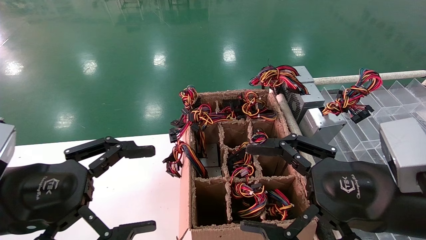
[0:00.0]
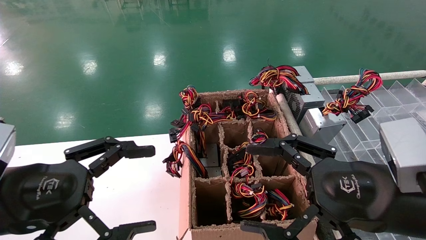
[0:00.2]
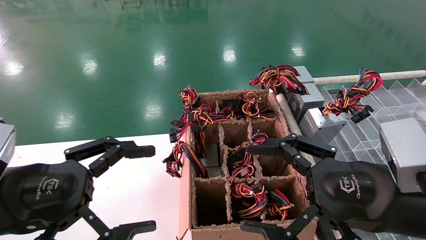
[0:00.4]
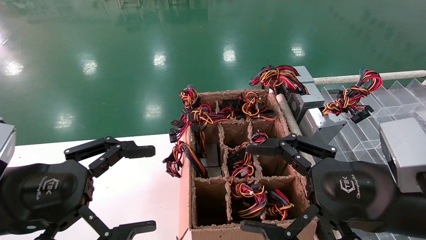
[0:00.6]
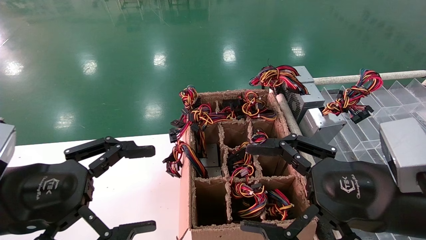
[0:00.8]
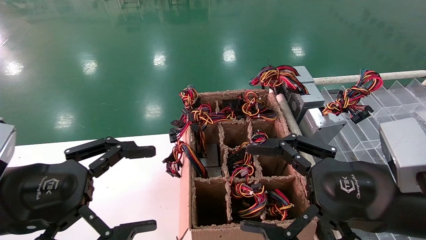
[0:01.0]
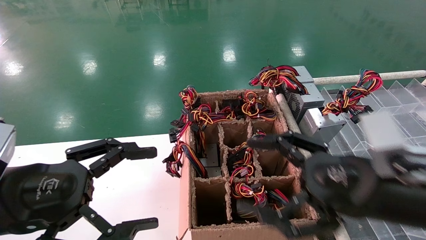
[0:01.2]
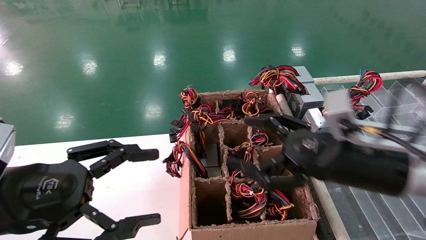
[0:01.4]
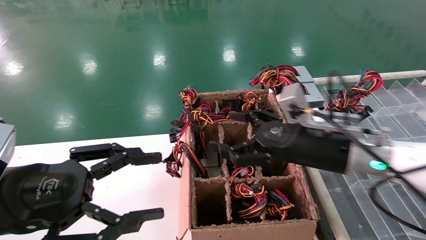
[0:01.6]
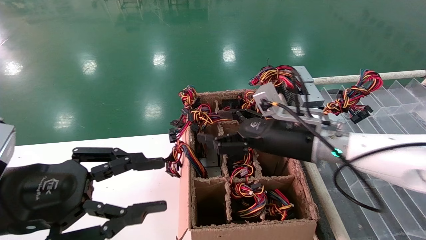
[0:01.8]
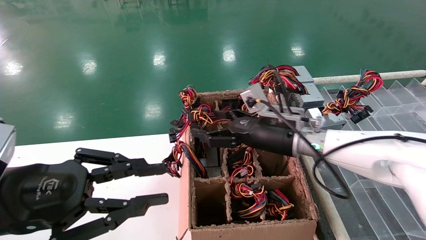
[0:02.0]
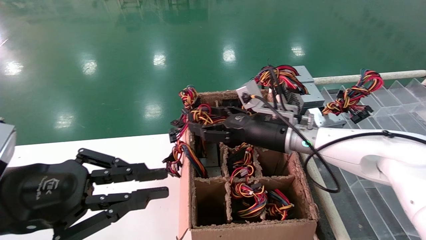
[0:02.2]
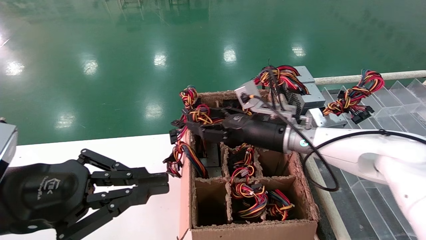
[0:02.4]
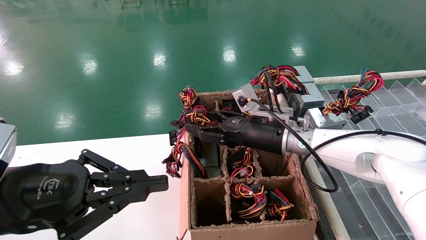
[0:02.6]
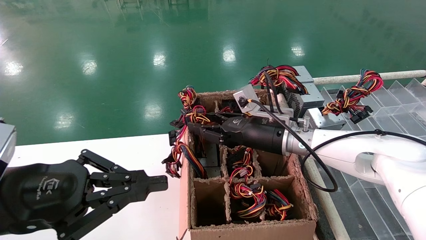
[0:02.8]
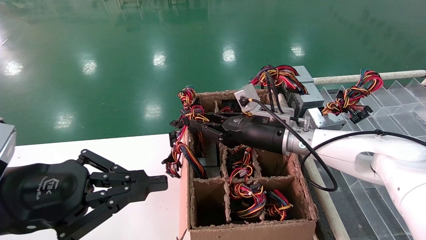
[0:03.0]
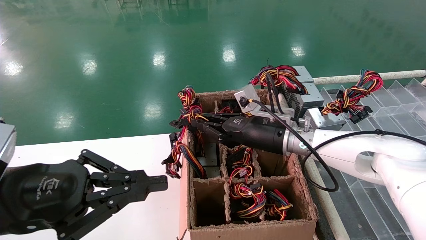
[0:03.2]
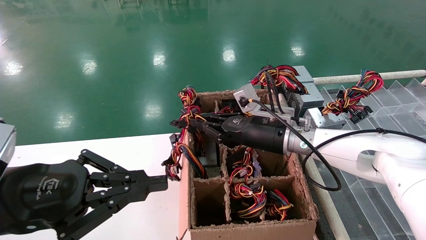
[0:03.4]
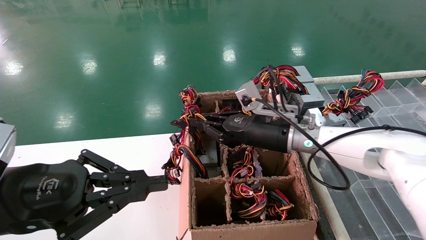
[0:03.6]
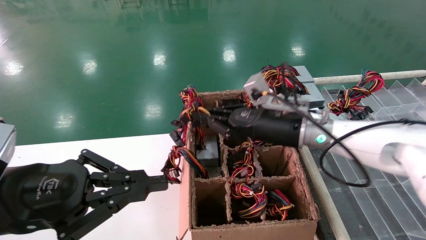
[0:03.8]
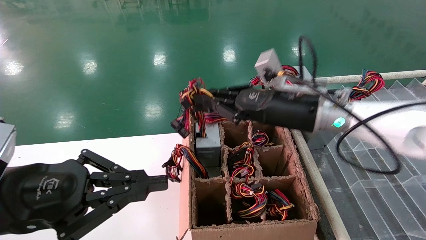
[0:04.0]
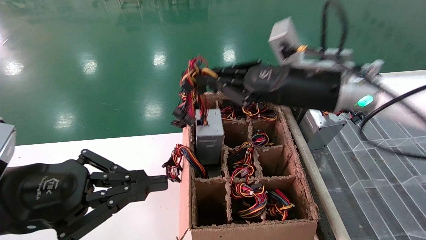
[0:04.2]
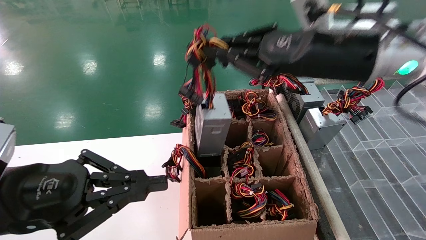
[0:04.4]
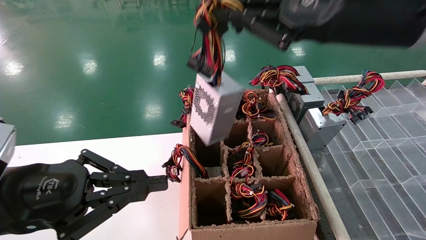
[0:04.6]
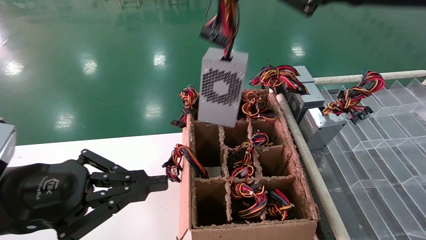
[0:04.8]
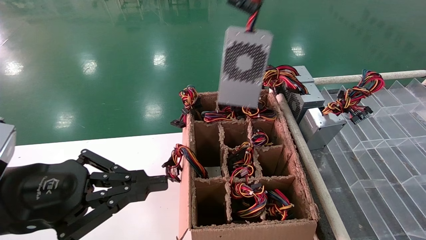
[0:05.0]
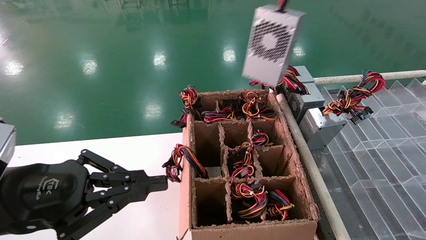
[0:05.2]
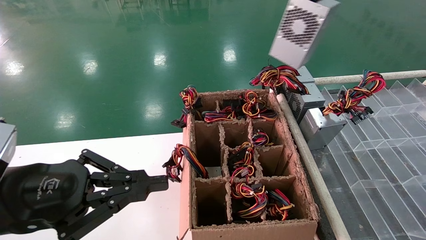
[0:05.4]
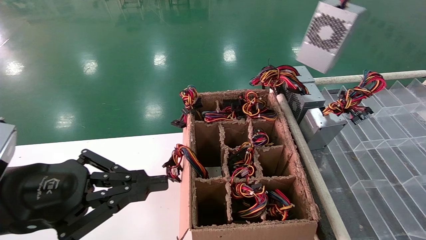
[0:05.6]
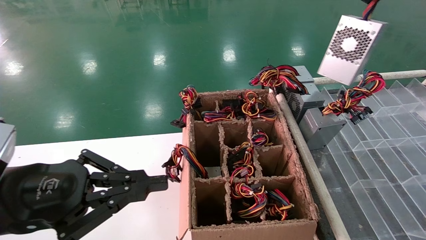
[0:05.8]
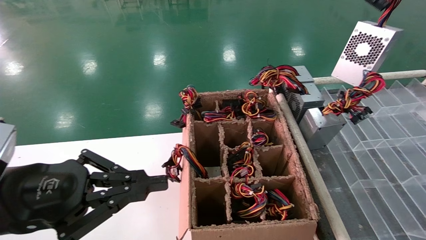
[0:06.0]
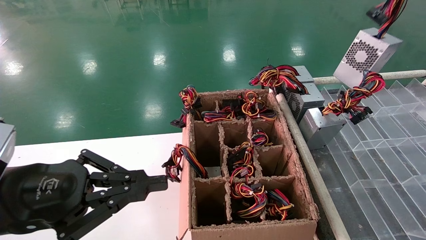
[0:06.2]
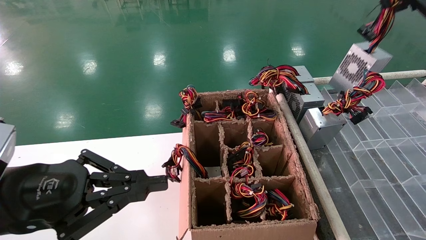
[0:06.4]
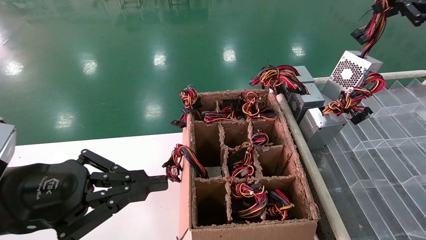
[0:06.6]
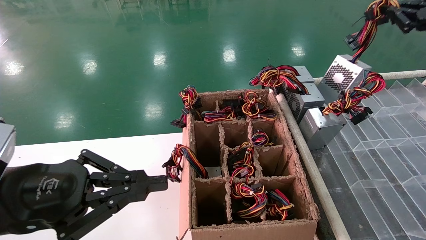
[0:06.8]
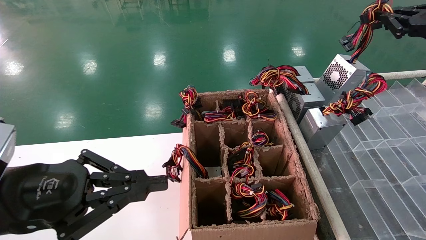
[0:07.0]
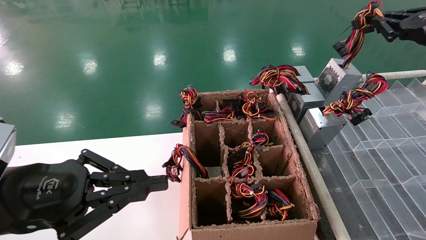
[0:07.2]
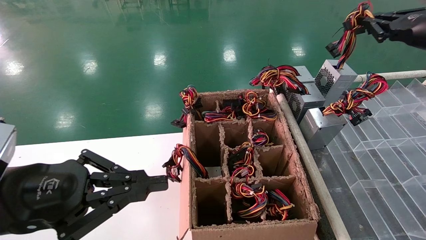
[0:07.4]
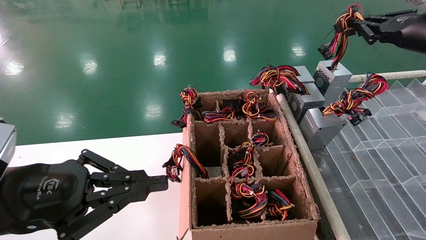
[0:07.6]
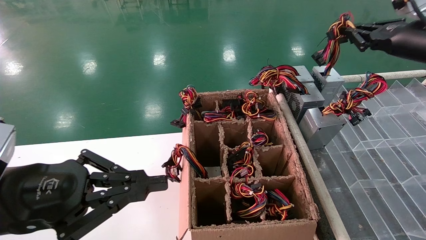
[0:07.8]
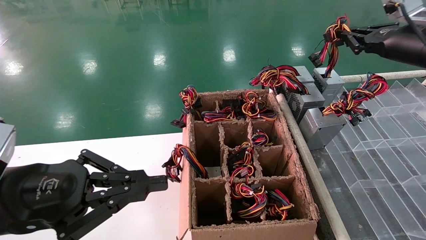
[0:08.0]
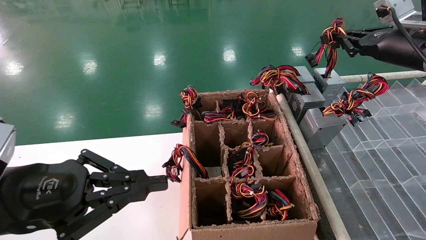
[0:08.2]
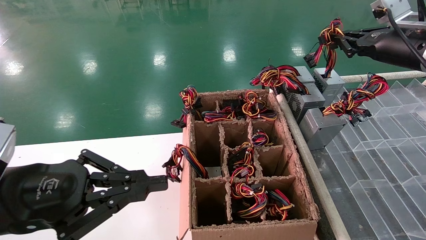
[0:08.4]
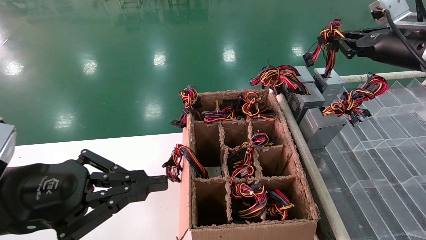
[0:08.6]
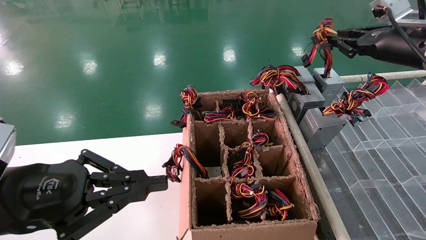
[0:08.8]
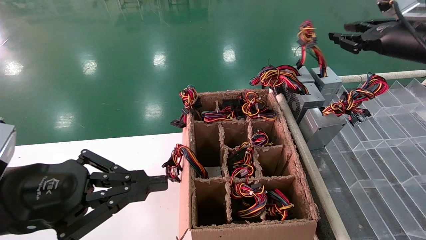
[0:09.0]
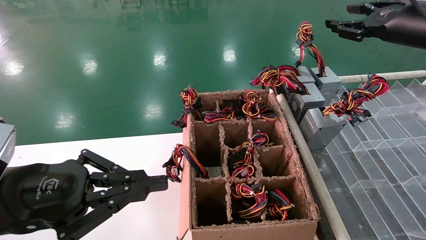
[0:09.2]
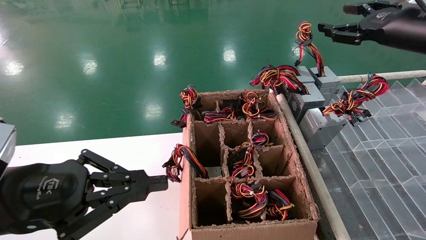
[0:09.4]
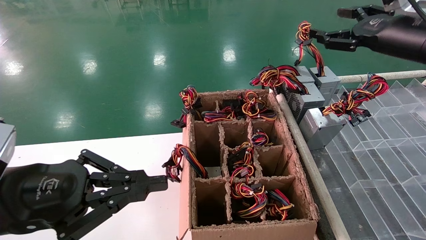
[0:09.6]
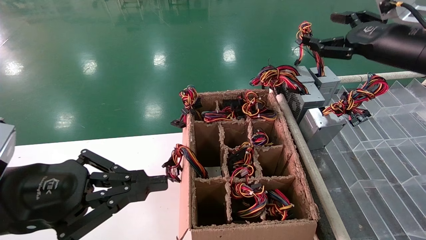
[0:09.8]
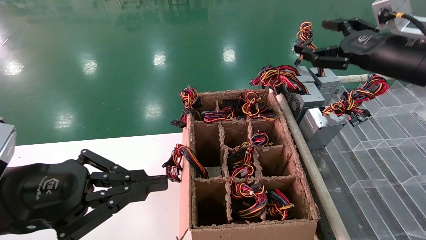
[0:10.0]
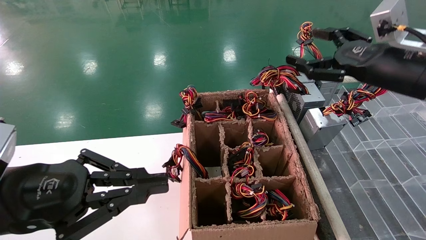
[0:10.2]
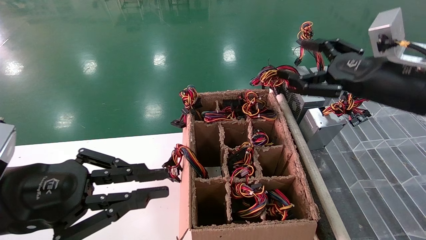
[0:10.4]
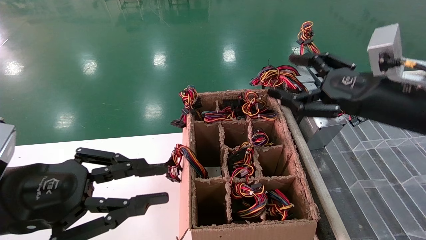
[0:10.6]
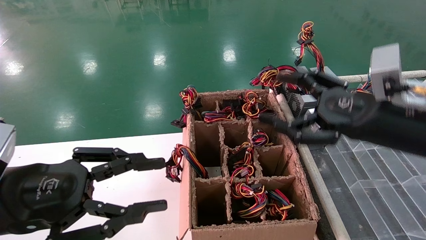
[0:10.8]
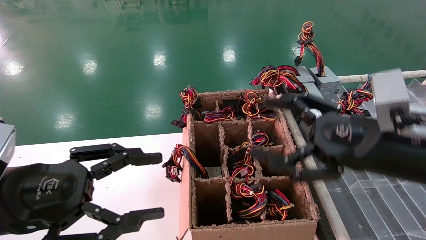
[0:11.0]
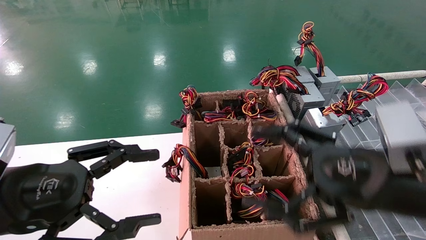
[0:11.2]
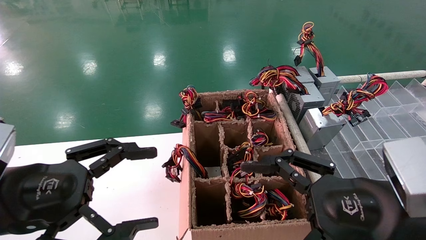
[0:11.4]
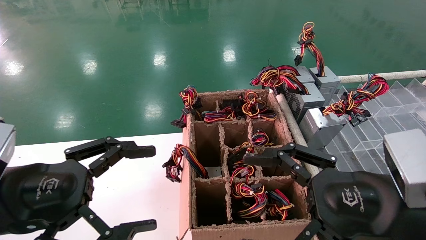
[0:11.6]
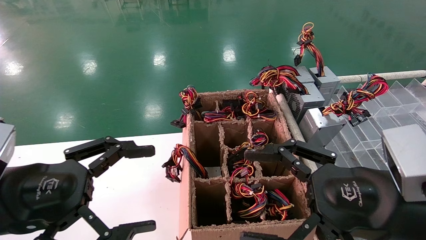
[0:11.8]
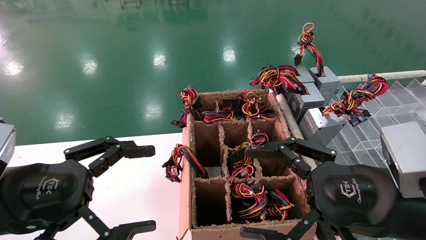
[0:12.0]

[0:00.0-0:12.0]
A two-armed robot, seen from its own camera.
Step, 0:01.4 to 0:03.4: Grab the main unit power supply from the containment box.
Step, 0:03.6 to 0:09.0: Place the main unit power supply in the designated area.
0:00.0 to 0:01.6: The right gripper goes some 15 cm forward.
0:01.6 to 0:03.0: The left gripper closes its fingers, while the right gripper goes about 10 cm forward and to the left, and closes its fingers.
0:03.0 to 0:04.4: The right gripper goes roughly 20 cm upward and backward, and closes.
0:04.4 to 0:06.0: The right gripper moves to the right and upward, approximately 25 cm.
0:06.0 to 0:07.6: The right gripper travels forward and downward by about 15 cm.
0:07.6 to 0:09.0: The grippers move only a little.
0:09.0 to 0:10.4: The right gripper moves downward, backward and to the left, roughly 15 cm, and opens.
0:10.4 to 0:12.0: The right gripper travels backward, downward and to the left by about 15 cm. The left gripper opens.

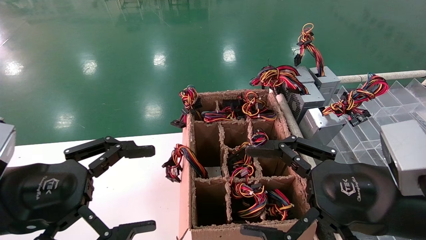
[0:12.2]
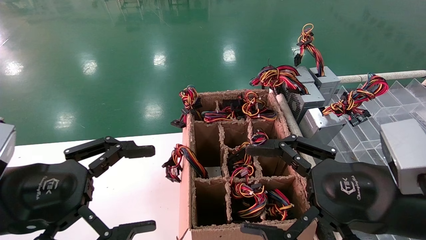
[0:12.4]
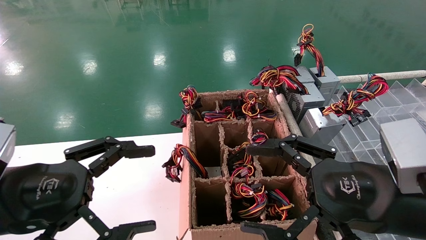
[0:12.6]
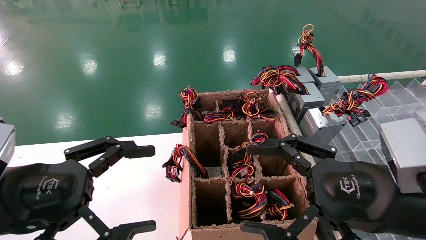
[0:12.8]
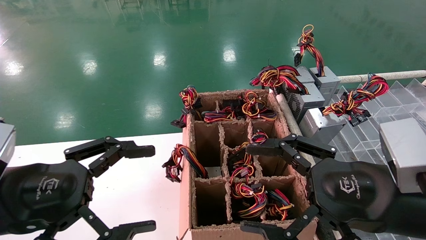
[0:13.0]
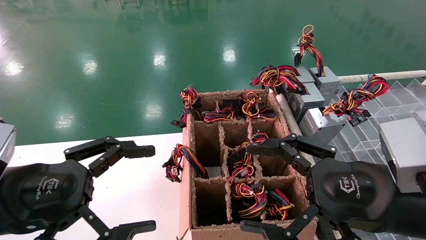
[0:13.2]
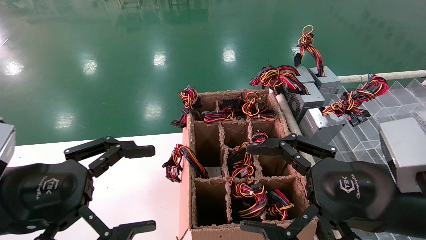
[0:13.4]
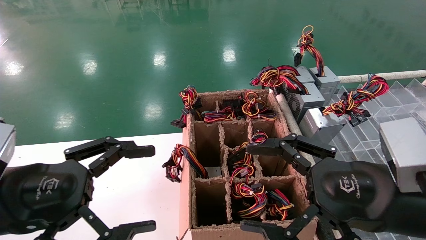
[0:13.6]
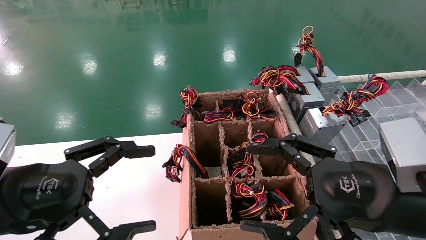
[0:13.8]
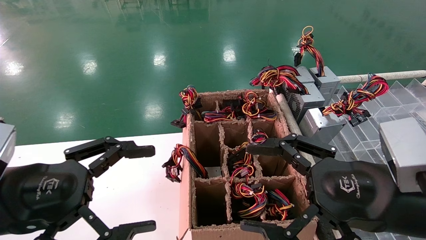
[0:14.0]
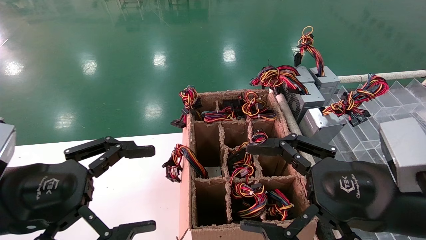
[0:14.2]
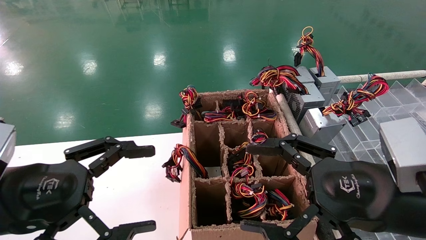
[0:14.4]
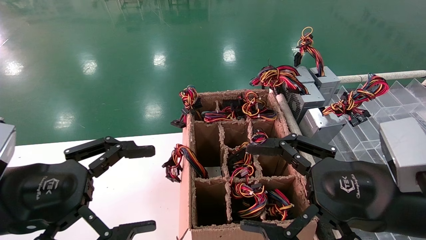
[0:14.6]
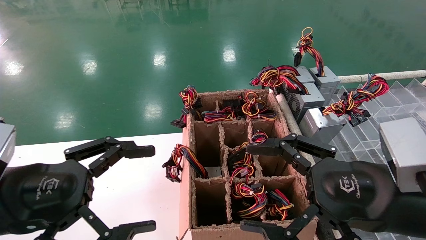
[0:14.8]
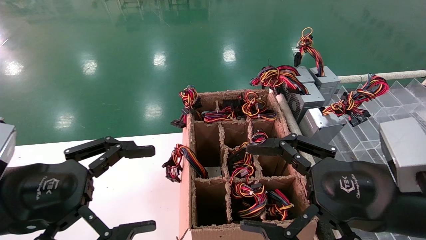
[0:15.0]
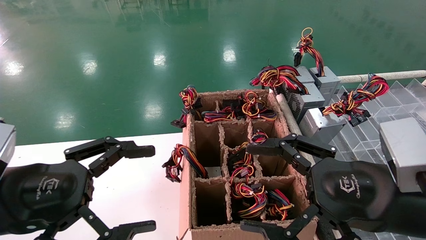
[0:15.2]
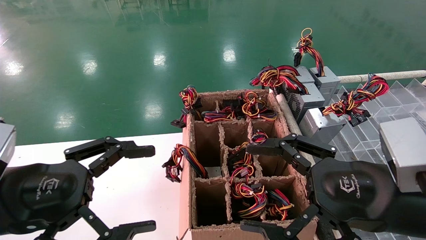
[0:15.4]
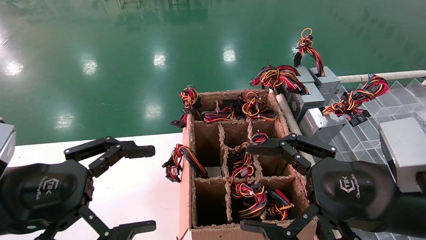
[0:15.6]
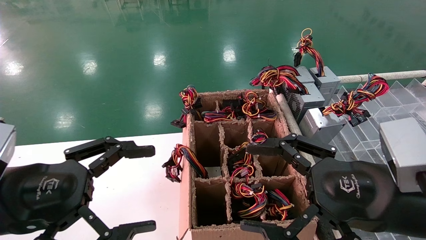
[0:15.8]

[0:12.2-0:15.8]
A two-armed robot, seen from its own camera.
0:12.2 to 0:15.8: Both grippers stay about where they are.

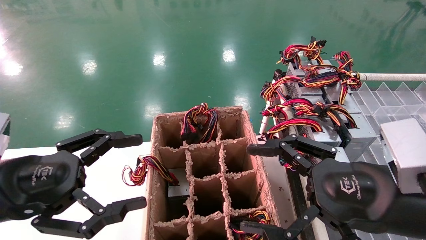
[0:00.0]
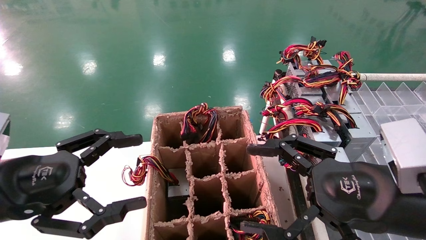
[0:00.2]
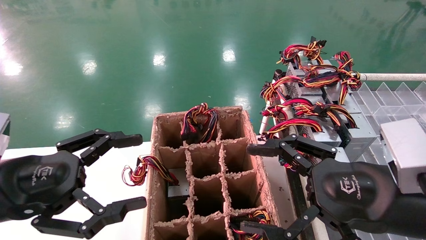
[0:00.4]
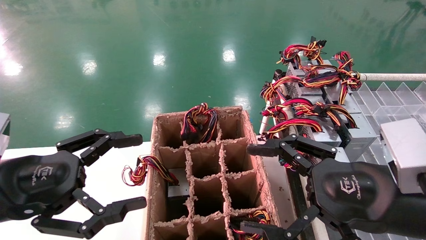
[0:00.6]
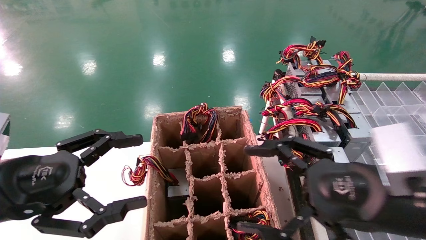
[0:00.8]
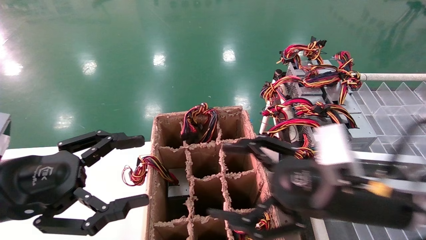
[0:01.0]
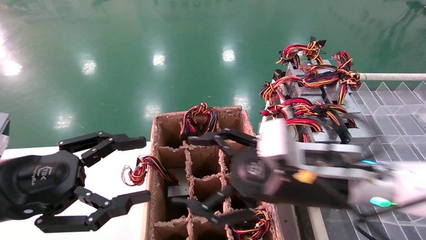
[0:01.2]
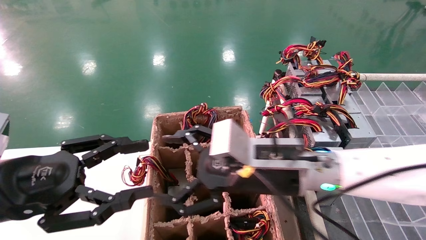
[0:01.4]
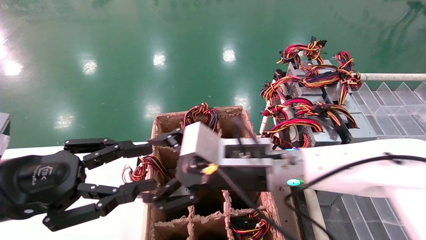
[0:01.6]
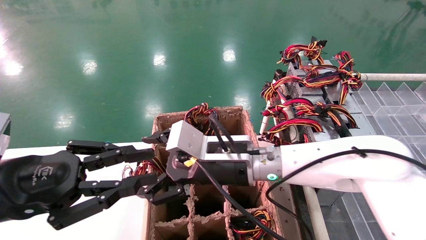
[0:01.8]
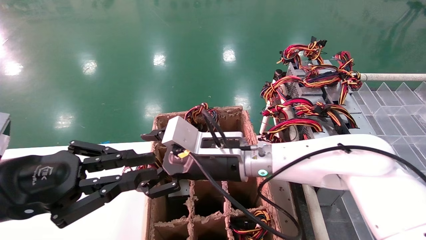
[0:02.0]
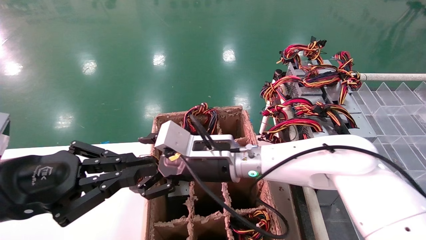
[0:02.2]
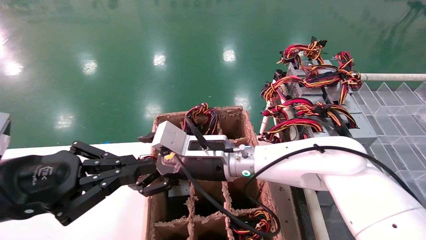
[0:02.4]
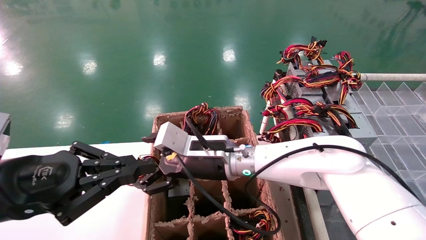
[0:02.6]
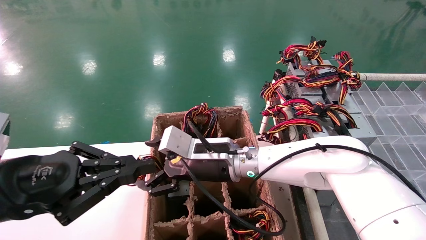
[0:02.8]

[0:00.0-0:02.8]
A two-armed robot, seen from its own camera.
0:00.0 to 0:01.4: The right gripper goes approximately 15 cm to the left and forward.
0:01.4 to 0:02.8: The right gripper shifts roughly 10 cm forward and to the left. Meanwhile the left gripper closes its fingers.
